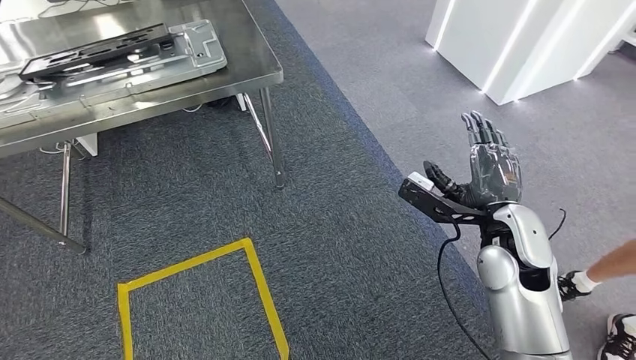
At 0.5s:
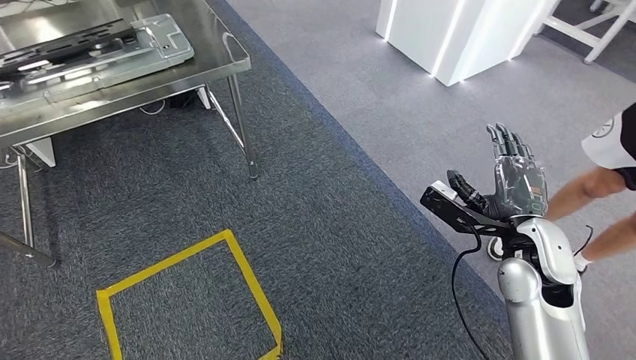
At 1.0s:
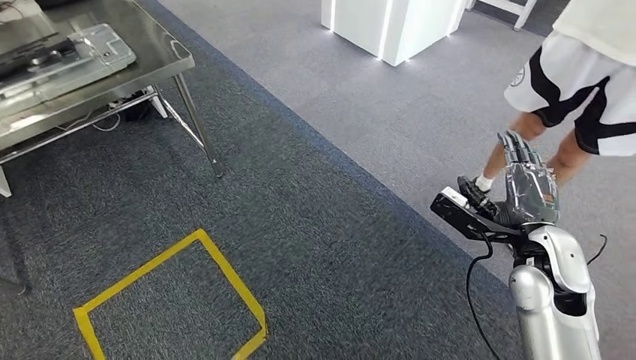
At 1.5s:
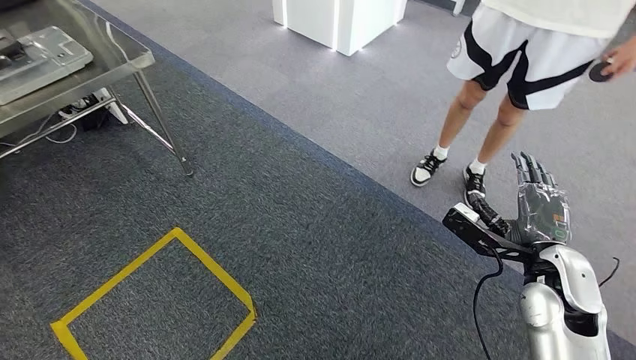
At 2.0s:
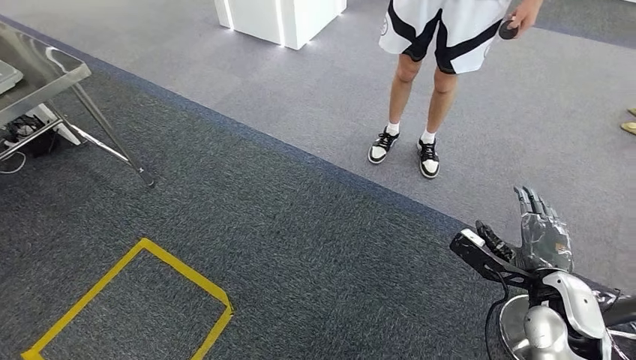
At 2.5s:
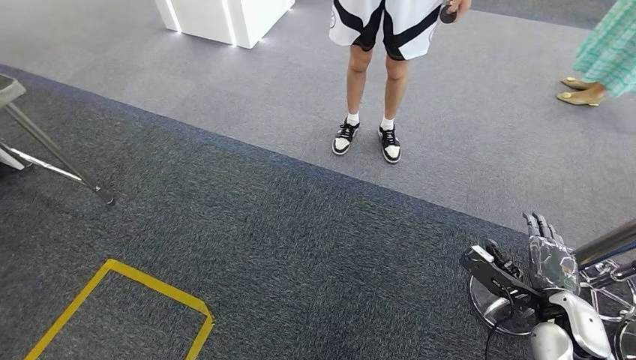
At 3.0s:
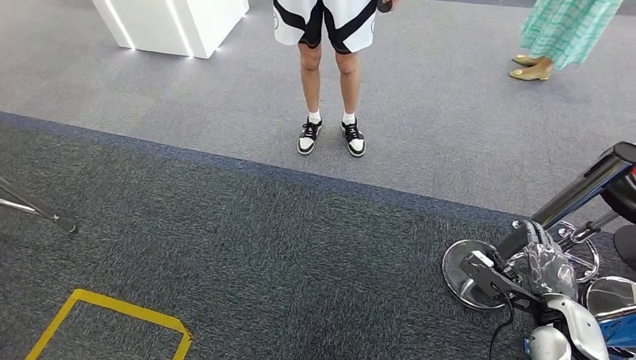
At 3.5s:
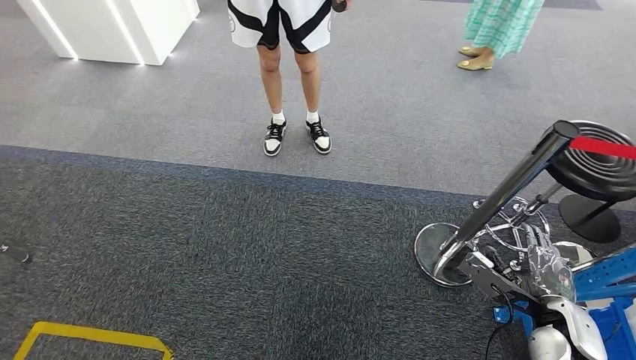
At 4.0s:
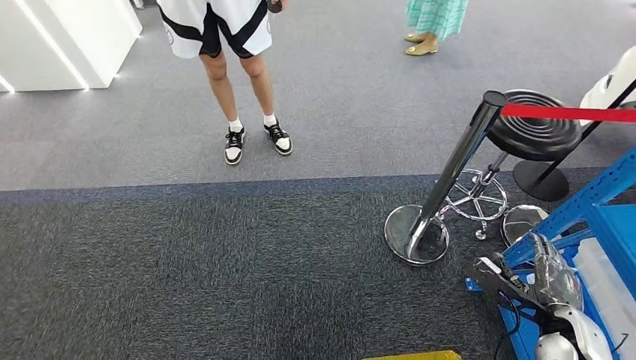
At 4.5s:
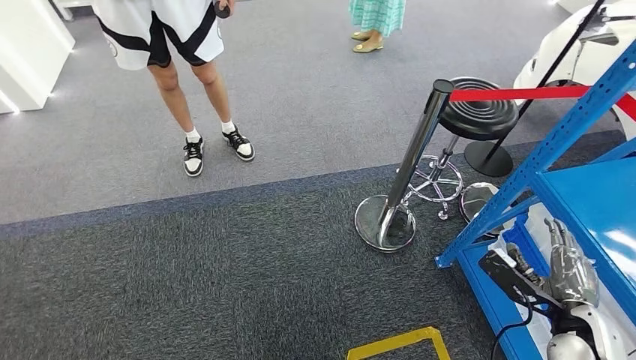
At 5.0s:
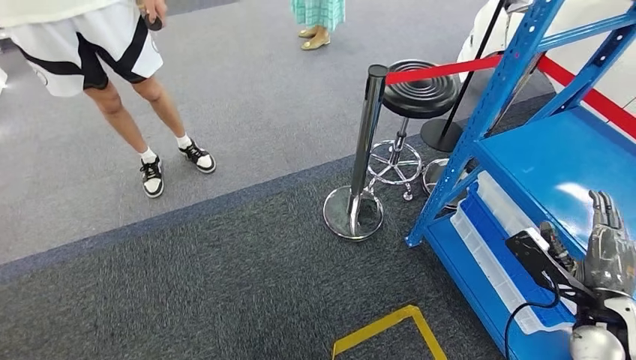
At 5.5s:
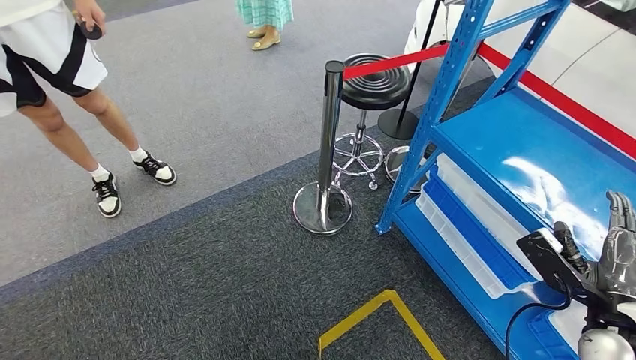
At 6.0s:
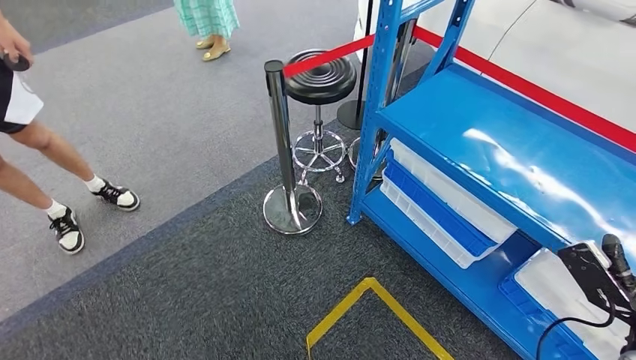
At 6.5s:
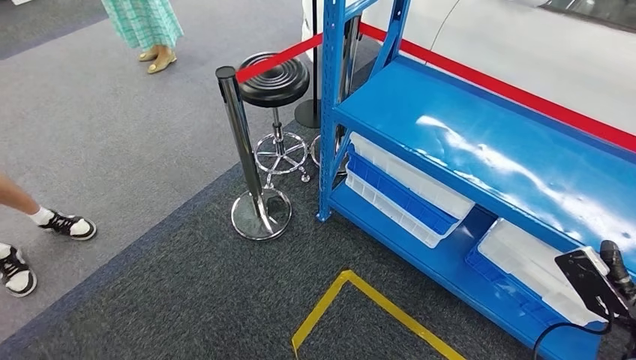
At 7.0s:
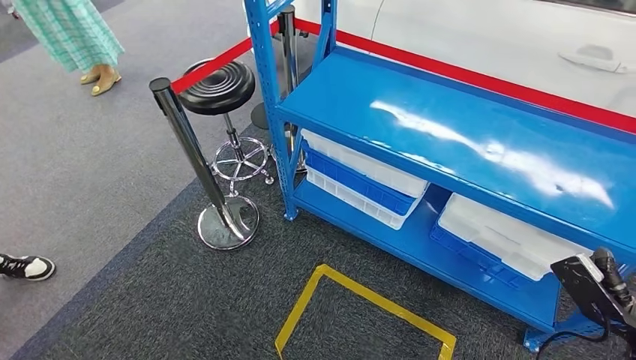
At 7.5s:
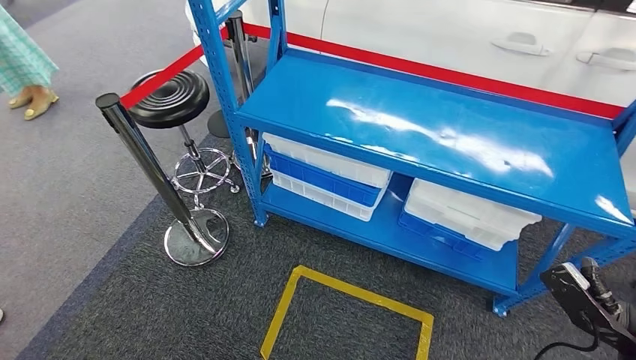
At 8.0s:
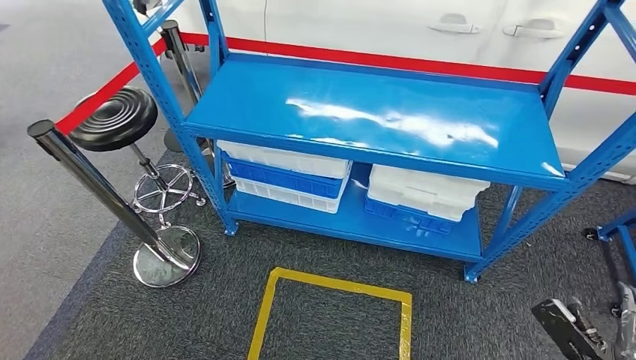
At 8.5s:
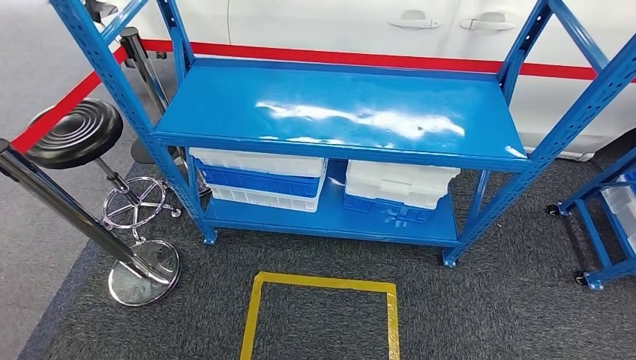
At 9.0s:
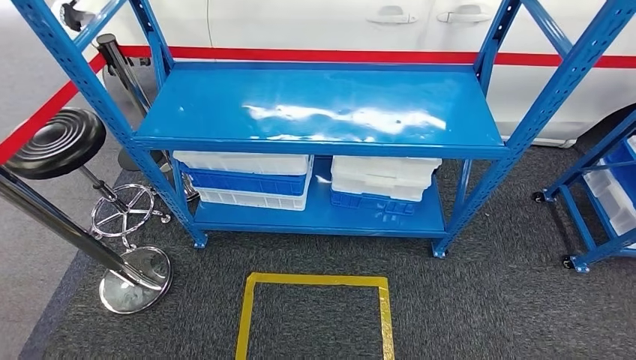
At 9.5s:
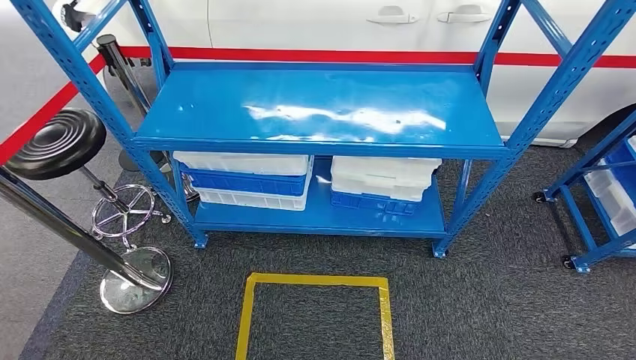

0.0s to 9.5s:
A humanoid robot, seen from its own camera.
Step, 0.0s to 9.0s: Return to the initial position at the shelf.

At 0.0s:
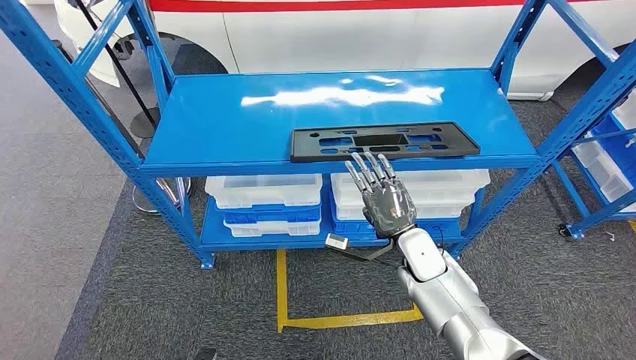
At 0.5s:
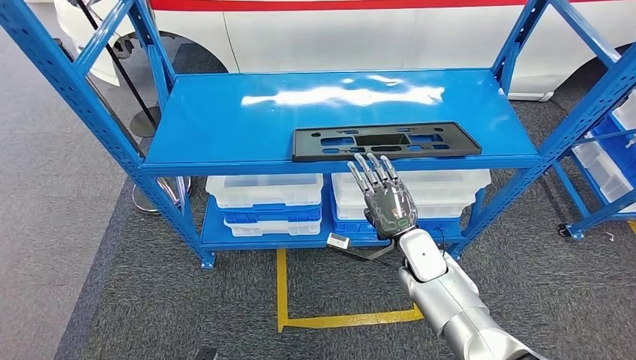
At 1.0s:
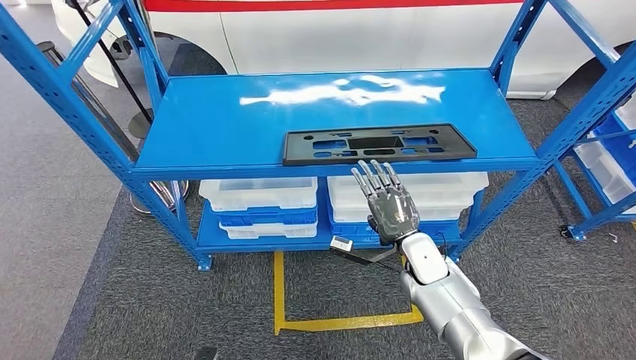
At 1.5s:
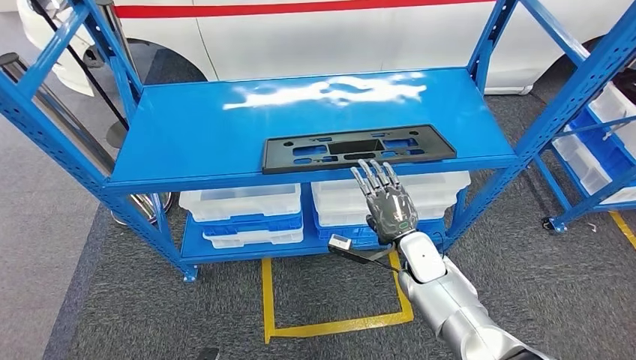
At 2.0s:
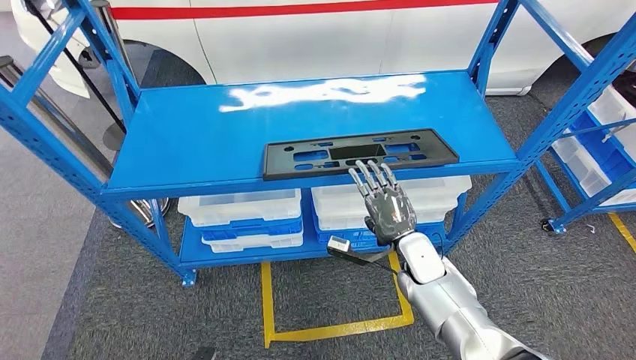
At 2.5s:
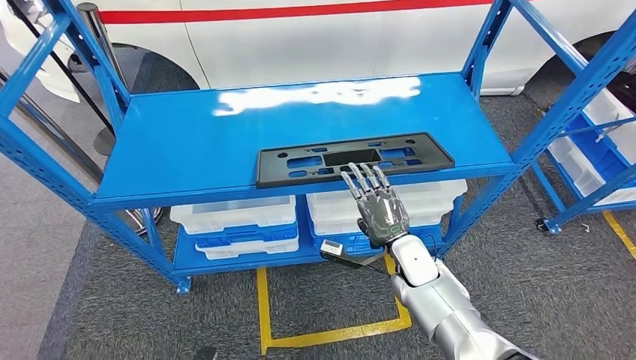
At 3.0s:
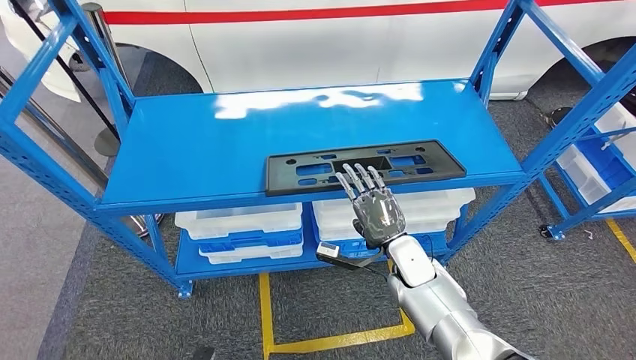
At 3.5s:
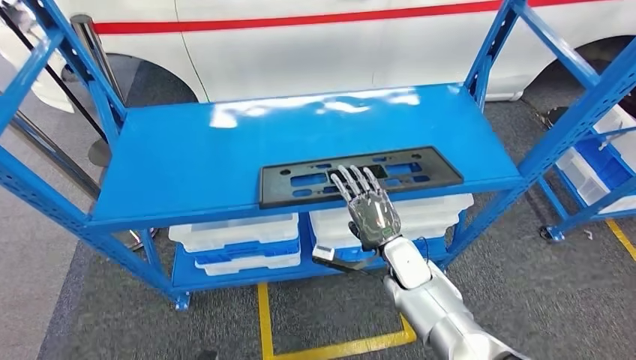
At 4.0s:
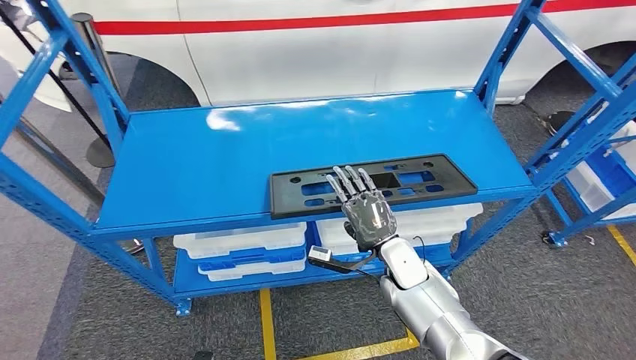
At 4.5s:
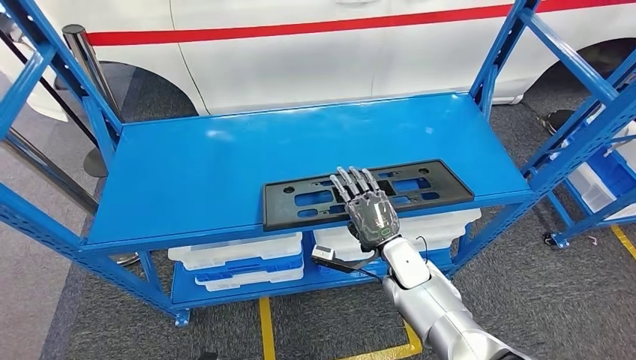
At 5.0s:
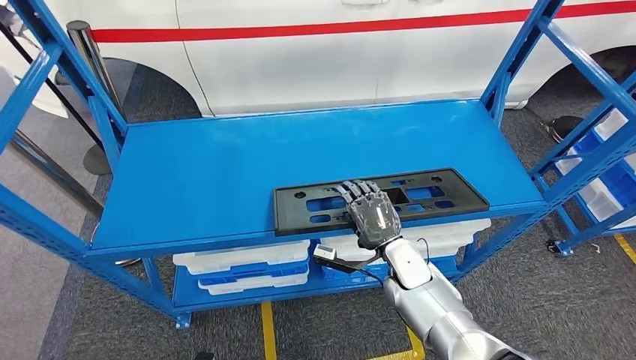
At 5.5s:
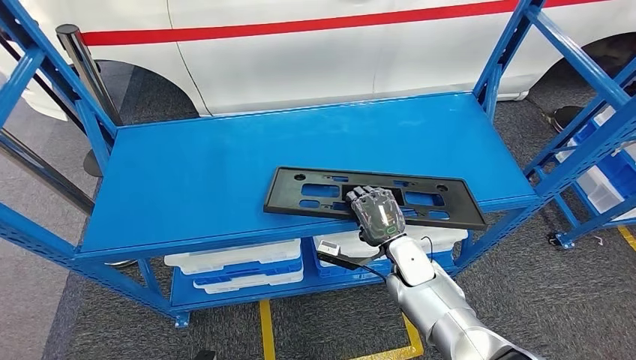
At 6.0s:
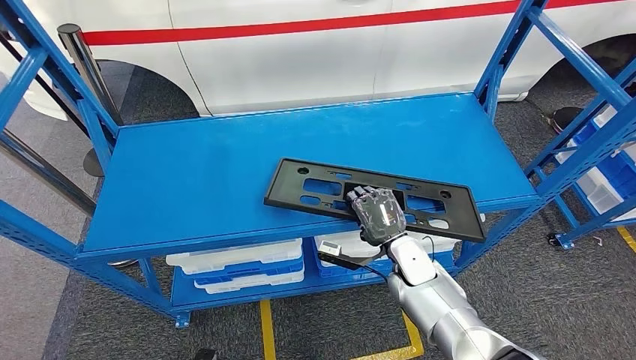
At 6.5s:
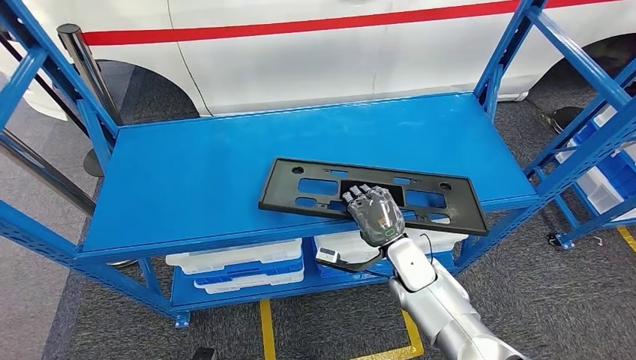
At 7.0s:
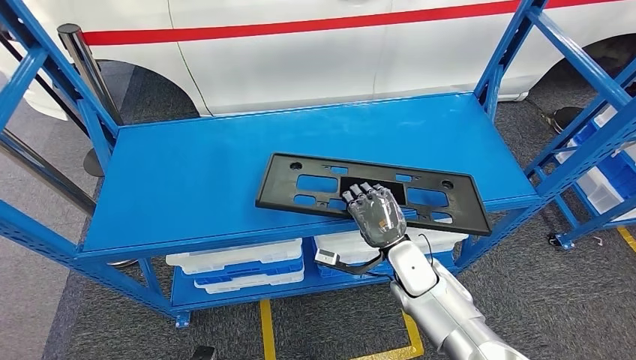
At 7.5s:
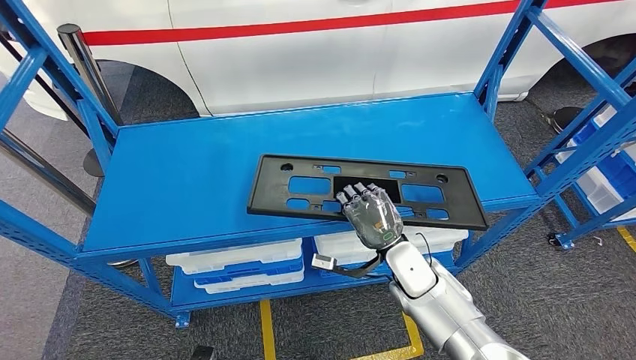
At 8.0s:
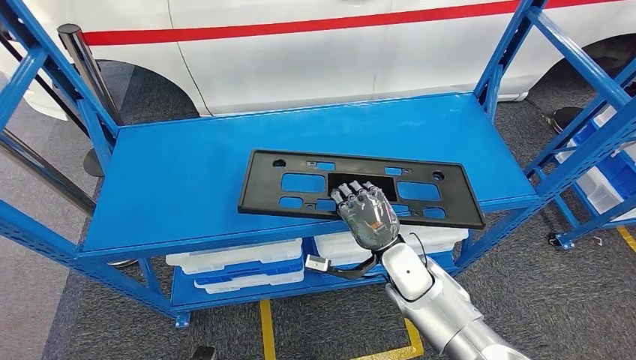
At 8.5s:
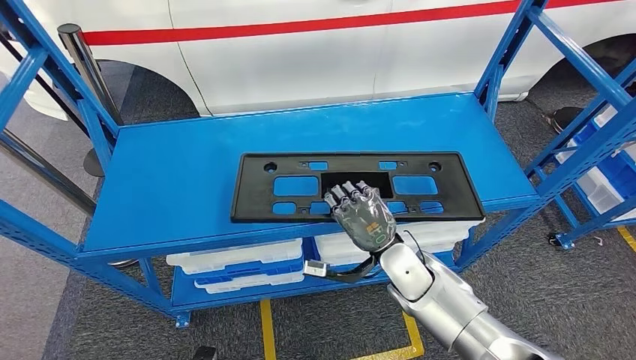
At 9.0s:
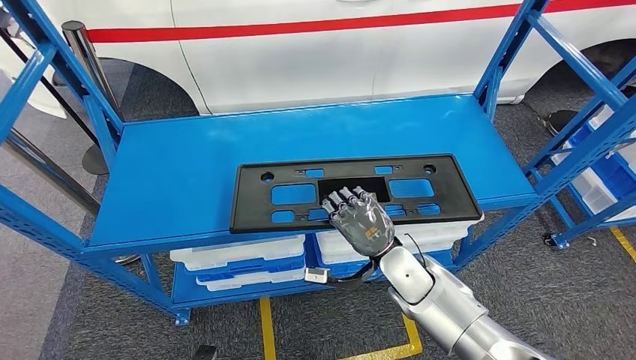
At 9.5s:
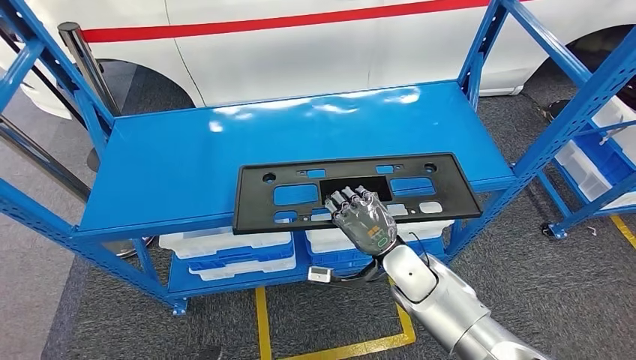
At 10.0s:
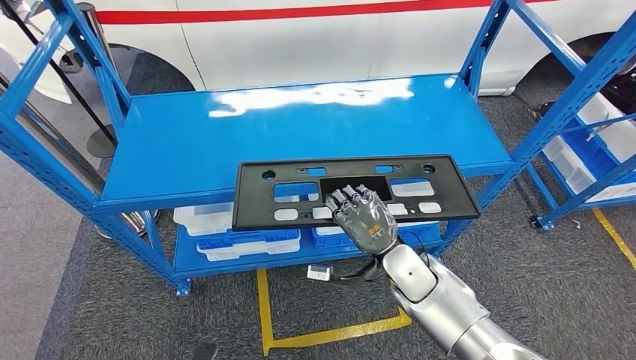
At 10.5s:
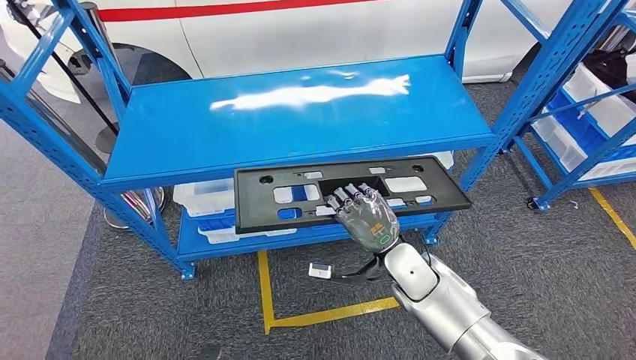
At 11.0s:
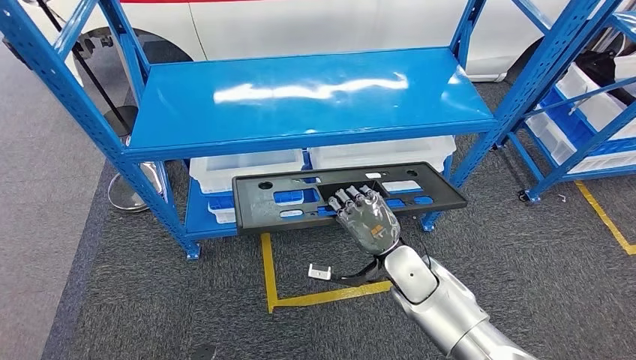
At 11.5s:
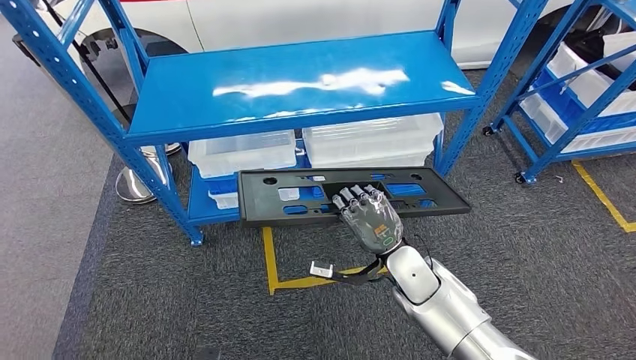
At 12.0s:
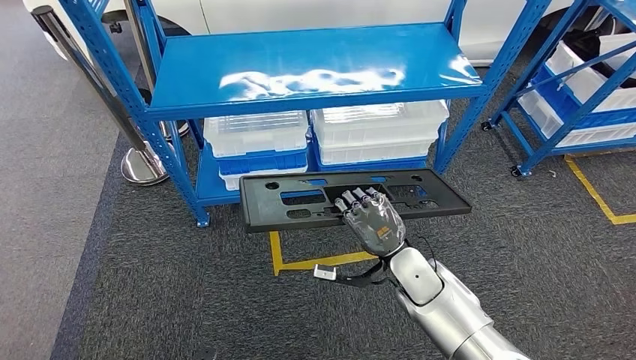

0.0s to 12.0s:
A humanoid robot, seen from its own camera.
Step, 0.0s to 8.0s: Pick up the large material from the shelf.
